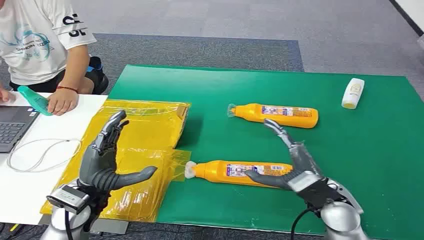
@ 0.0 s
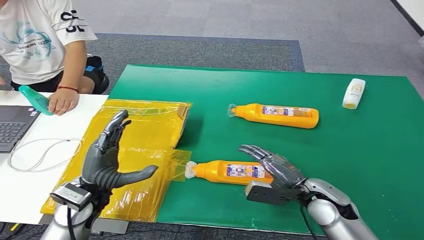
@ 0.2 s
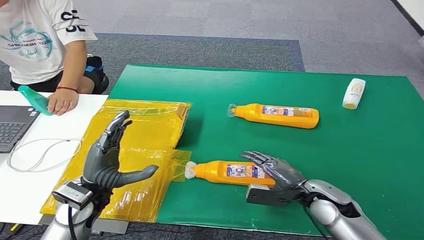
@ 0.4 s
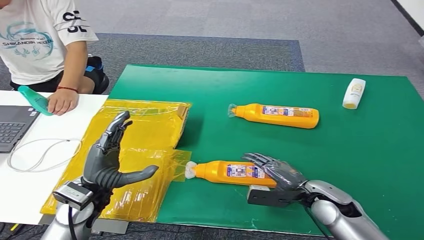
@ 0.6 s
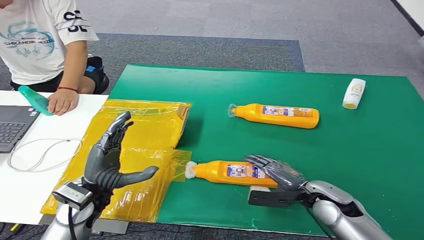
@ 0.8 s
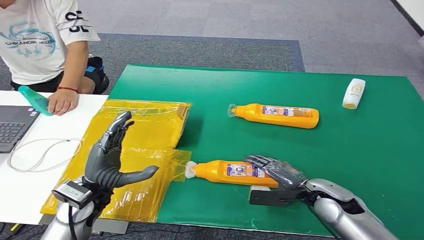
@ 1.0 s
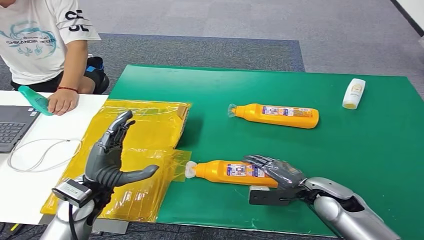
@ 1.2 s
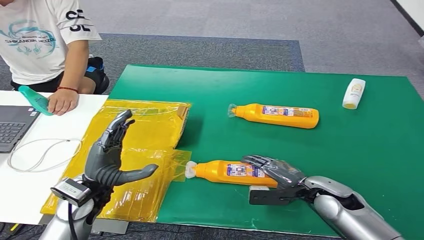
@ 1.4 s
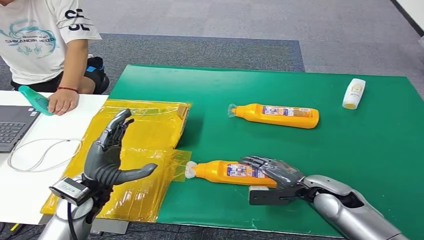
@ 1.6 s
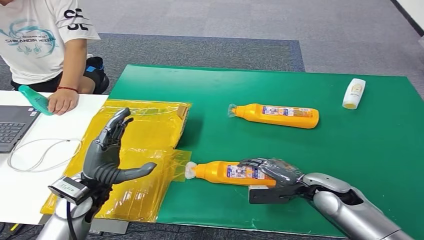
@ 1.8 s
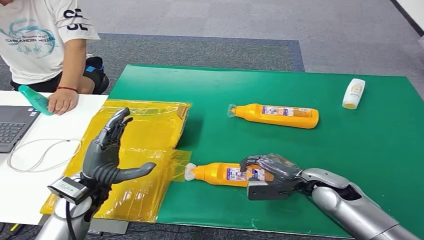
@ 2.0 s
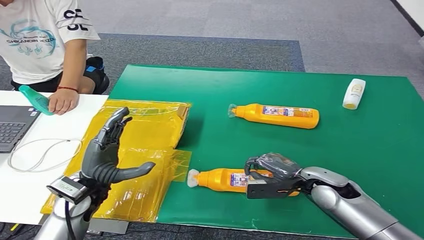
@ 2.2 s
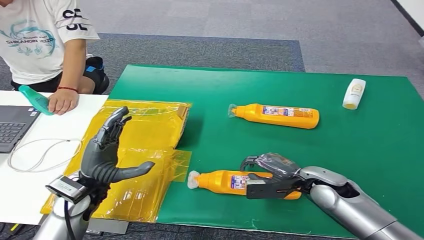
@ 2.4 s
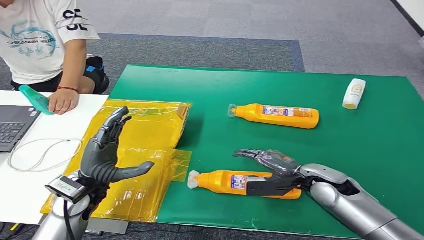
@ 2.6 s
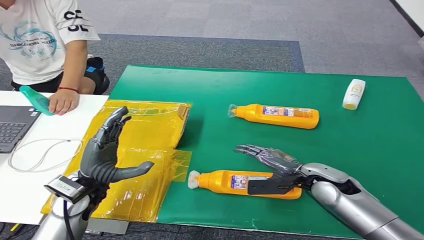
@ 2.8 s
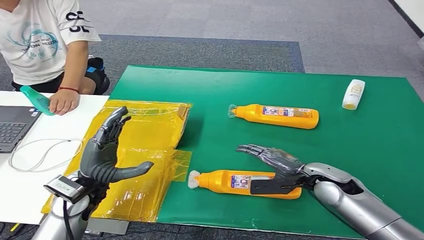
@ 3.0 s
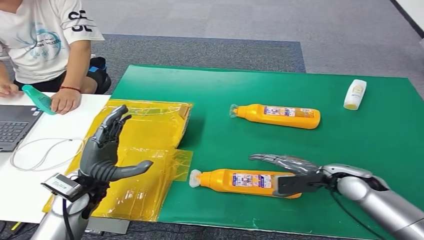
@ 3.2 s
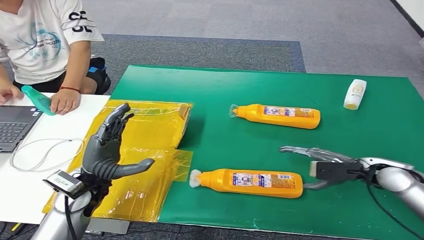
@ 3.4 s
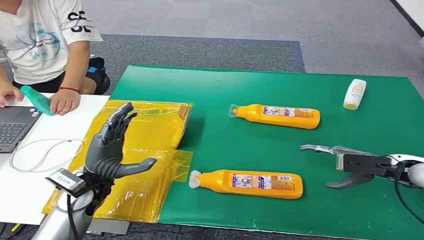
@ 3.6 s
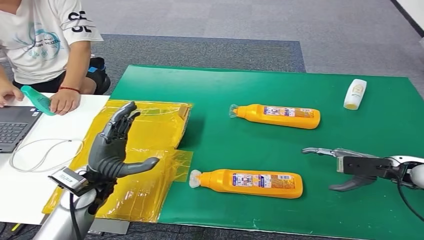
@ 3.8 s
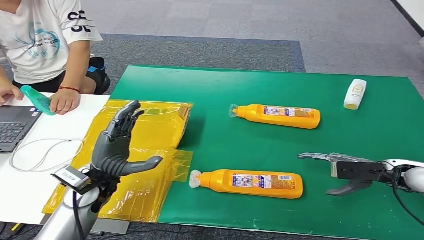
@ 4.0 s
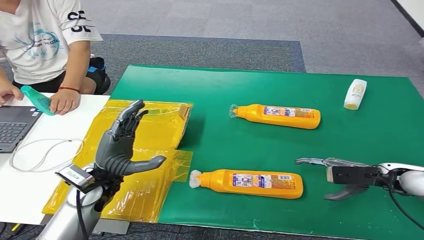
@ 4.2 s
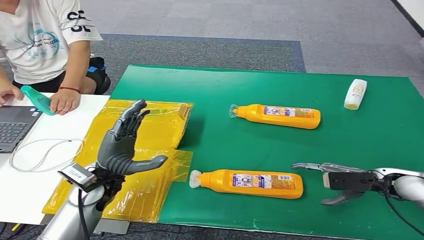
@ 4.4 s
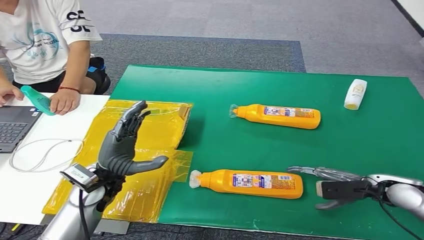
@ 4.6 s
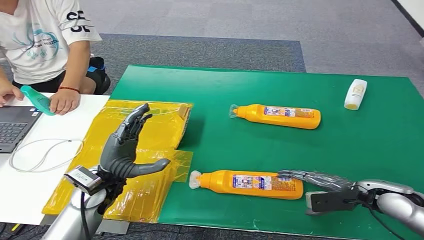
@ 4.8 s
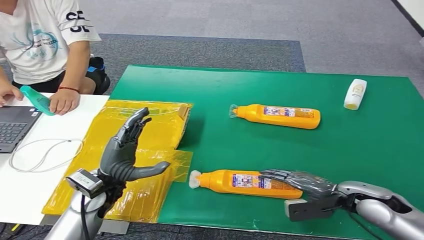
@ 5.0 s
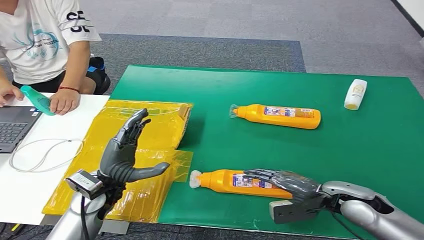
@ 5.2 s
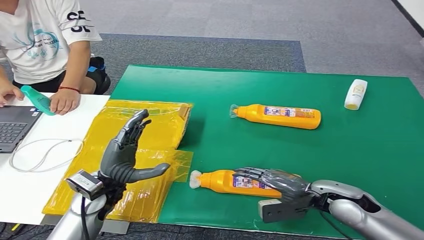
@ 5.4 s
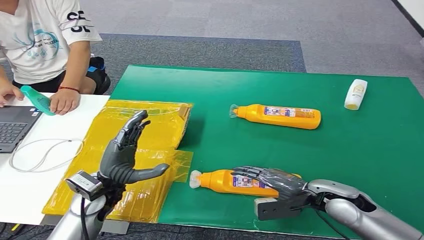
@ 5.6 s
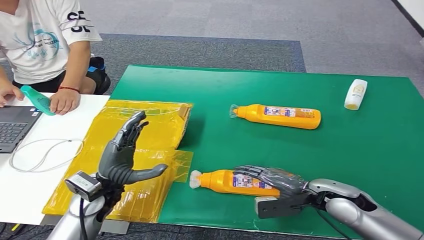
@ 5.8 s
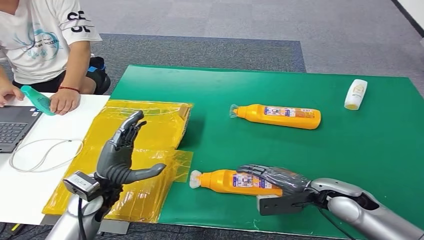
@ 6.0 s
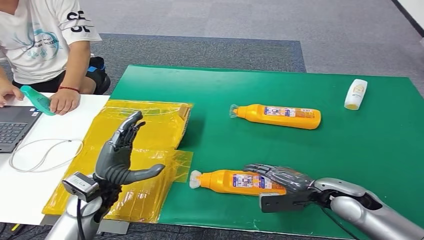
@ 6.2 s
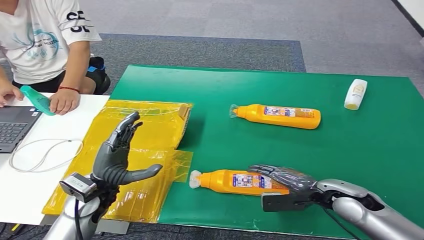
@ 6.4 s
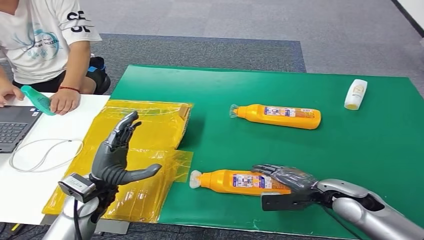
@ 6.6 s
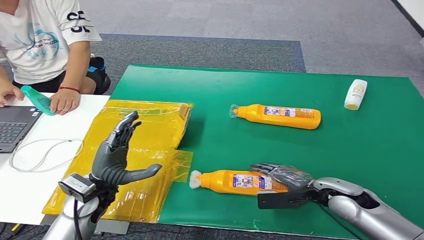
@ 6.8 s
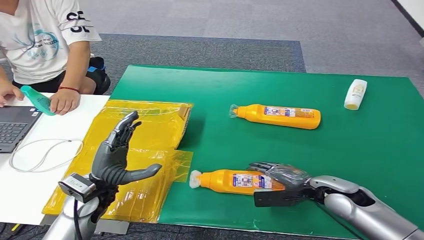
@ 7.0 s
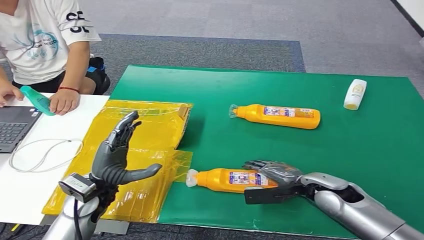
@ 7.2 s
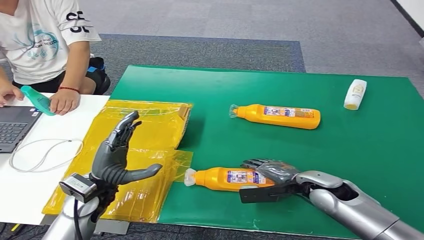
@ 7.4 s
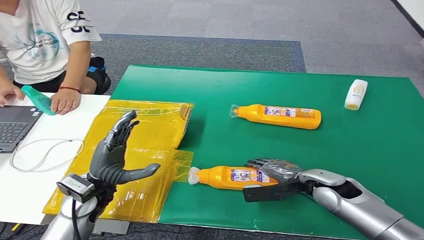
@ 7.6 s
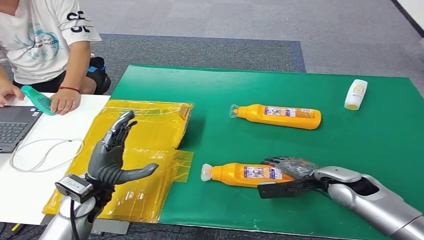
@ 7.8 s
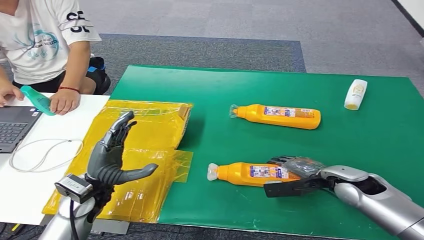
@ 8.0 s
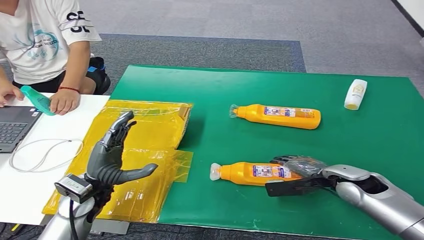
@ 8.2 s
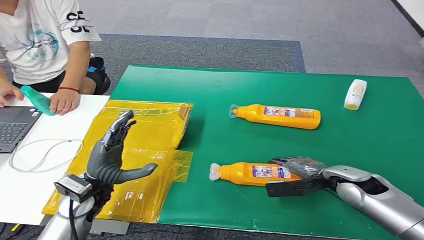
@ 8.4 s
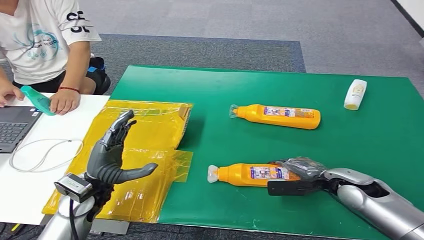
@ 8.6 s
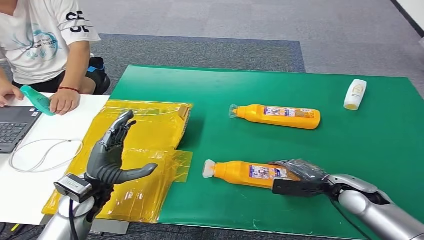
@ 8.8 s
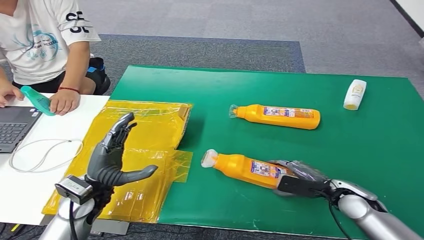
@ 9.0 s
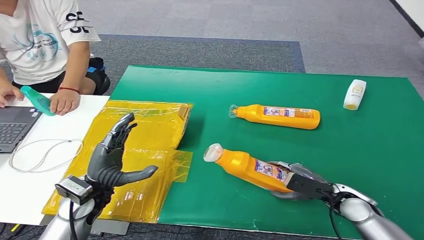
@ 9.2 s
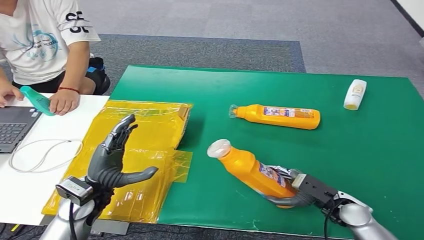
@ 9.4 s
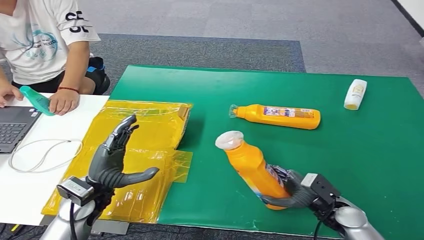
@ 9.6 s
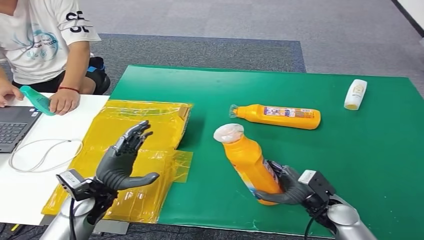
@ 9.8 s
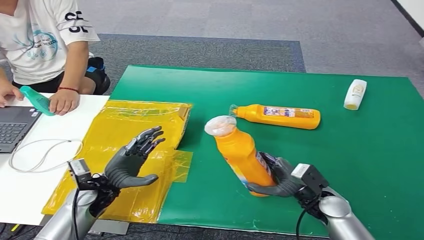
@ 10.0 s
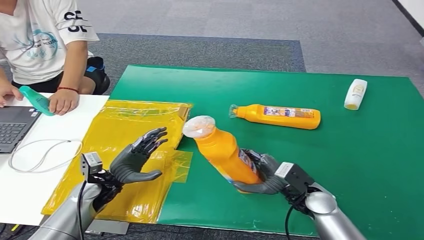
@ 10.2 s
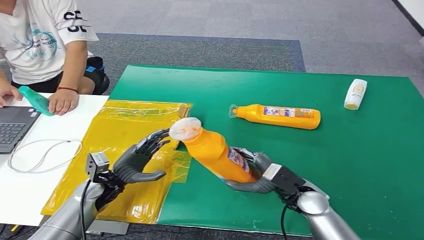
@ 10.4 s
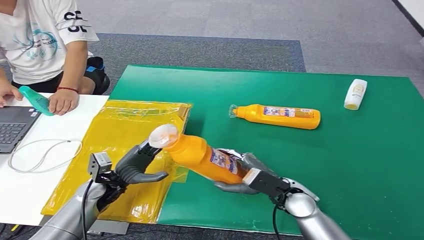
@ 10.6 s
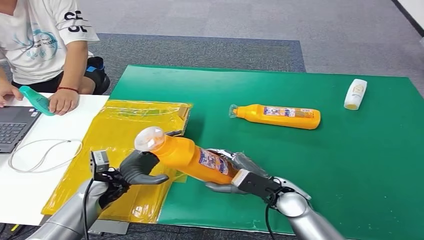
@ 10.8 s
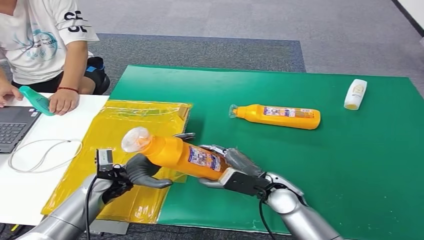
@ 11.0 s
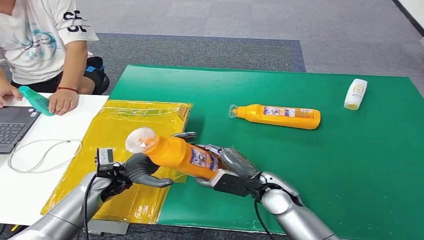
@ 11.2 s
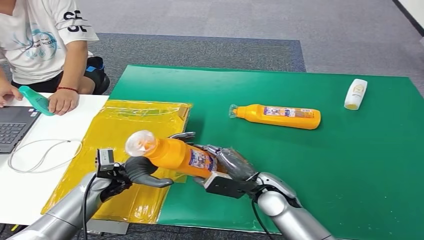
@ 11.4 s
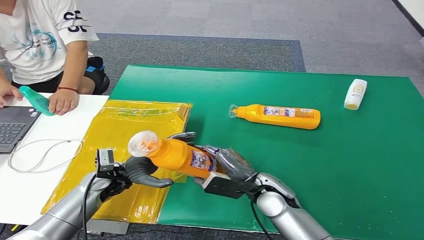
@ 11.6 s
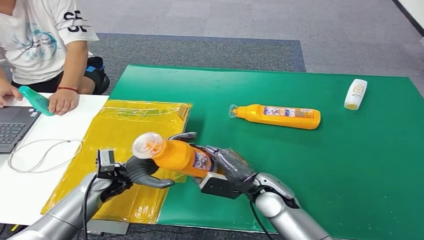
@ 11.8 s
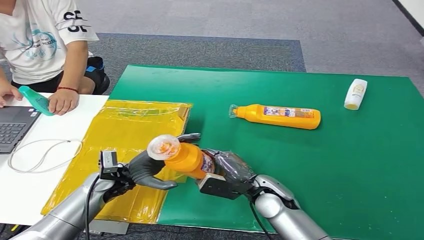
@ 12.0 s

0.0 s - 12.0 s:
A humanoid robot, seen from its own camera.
Step, 0.0 s - 9.8 s: Pick up the bottle from the table.
1.6 s - 3.0 s: The hands move only a little.
3.0 s - 4.4 s: The right hand moves to the right, some 15 cm.
4.4 s - 6.0 s: The right hand heads to the left, covering about 15 cm.
7.6 s - 9.0 s: The right hand travels to the right by approximately 5 cm.
9.0 s - 10.4 s: The right hand travels to the left by some 10 cm. Meanwhile the left hand travels downward by approximately 5 cm.
10.4 s - 12.0 s: The right hand heads to the left, covering about 10 cm, while the left hand moves approximately 5 cm.

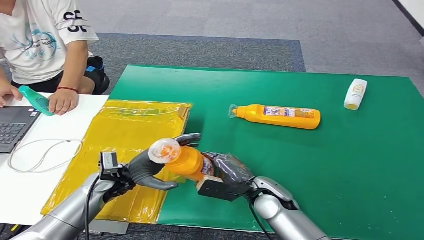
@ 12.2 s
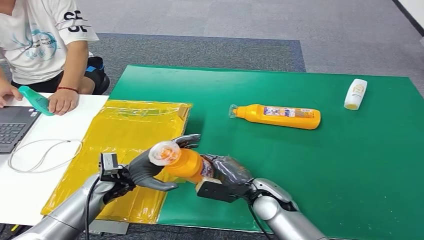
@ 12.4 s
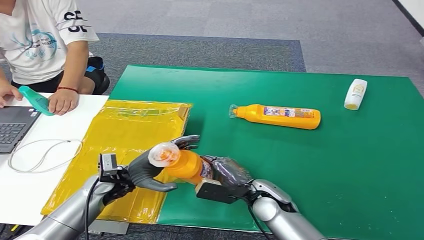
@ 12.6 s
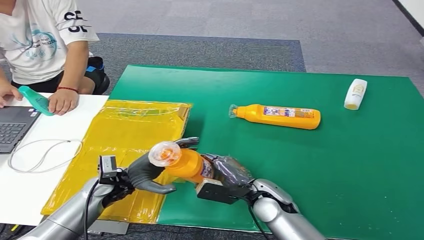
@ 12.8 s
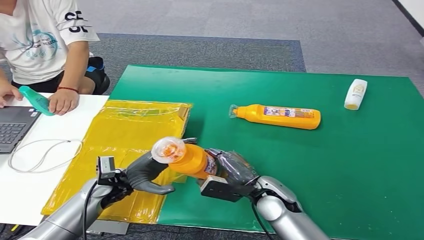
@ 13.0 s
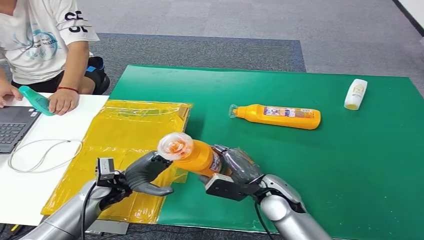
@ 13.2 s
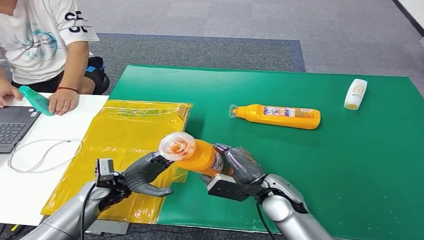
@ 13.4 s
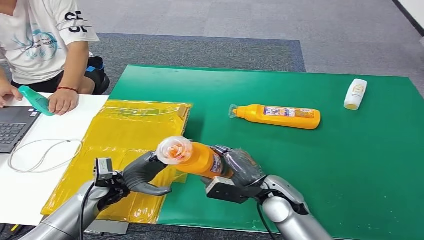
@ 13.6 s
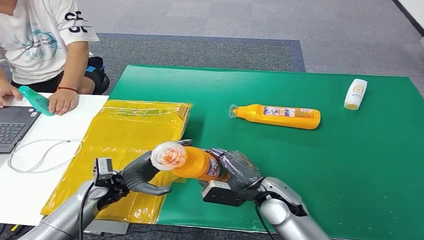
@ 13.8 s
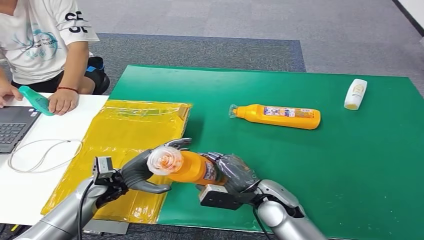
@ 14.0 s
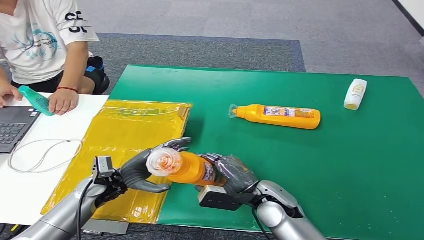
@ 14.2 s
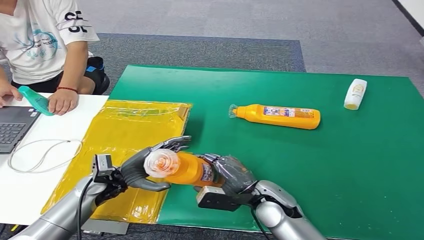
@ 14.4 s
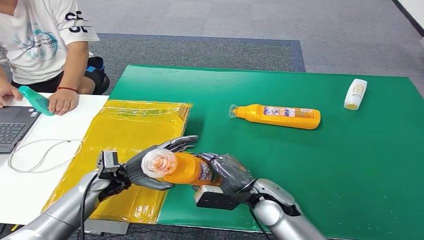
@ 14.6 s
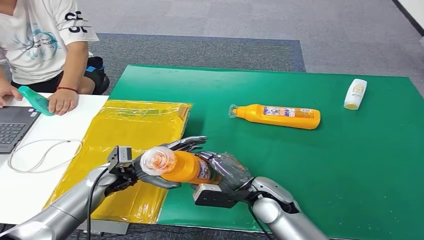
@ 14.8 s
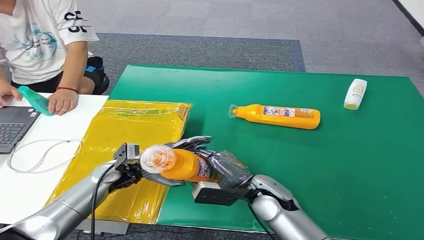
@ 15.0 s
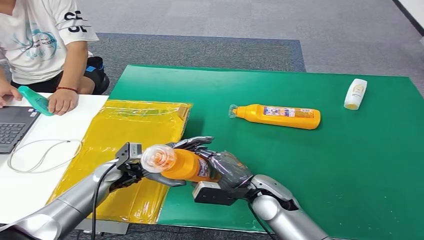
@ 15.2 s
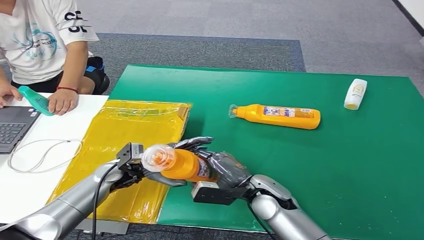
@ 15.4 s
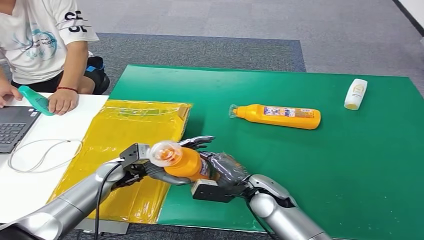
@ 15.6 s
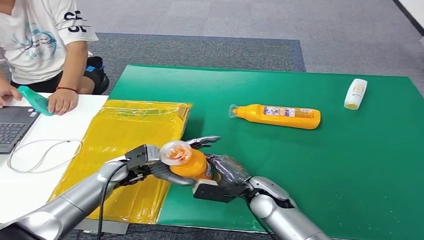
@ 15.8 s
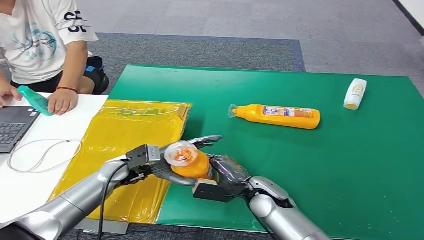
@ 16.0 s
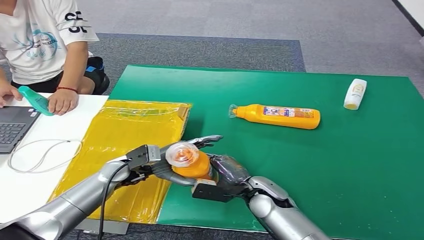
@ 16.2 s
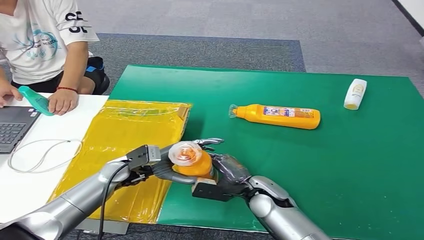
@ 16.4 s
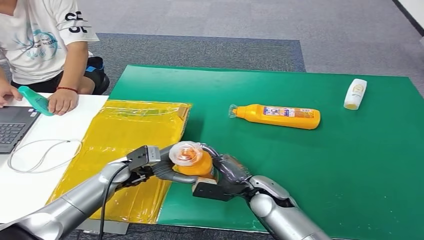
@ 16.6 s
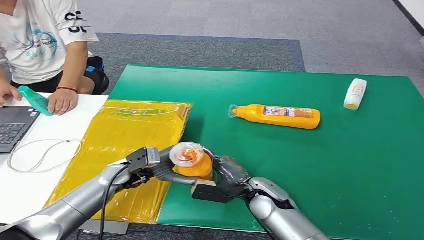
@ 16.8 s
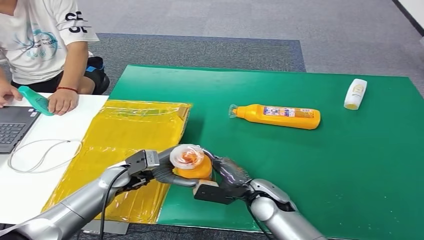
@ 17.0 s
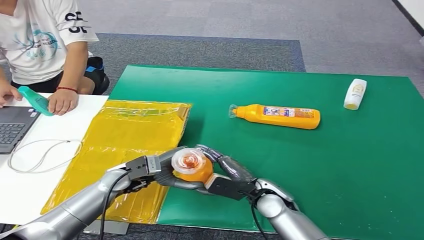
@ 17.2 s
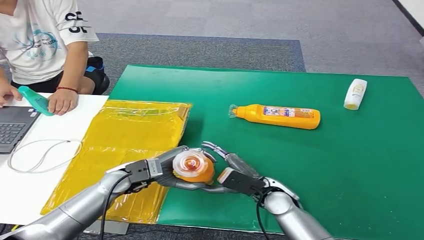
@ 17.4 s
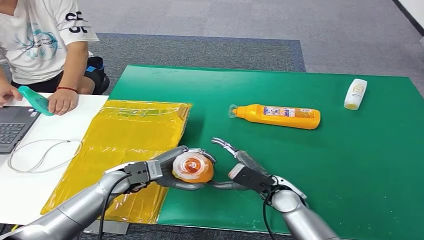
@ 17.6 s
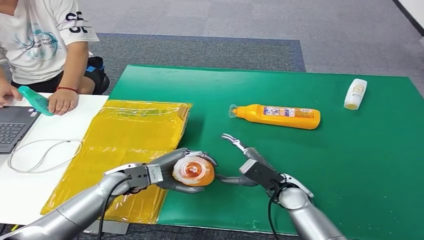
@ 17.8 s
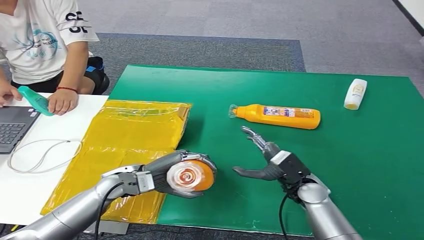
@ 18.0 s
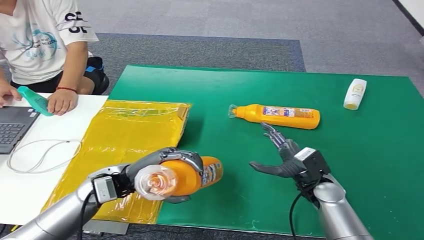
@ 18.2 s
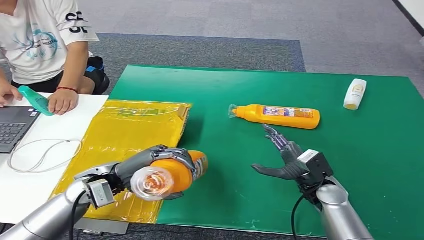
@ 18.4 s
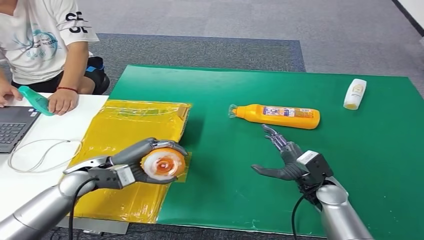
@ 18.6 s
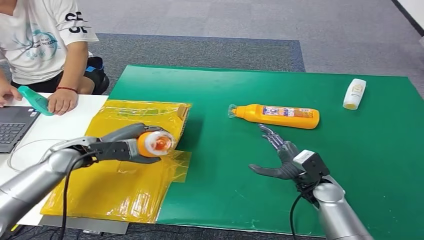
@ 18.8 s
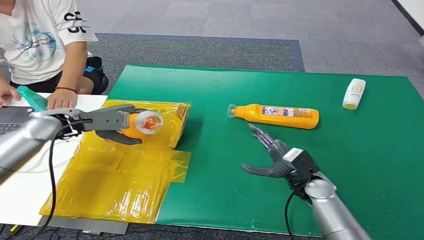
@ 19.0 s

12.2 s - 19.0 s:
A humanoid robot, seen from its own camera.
12.2 s - 16.2 s: There are only small adjustments of the hands.
